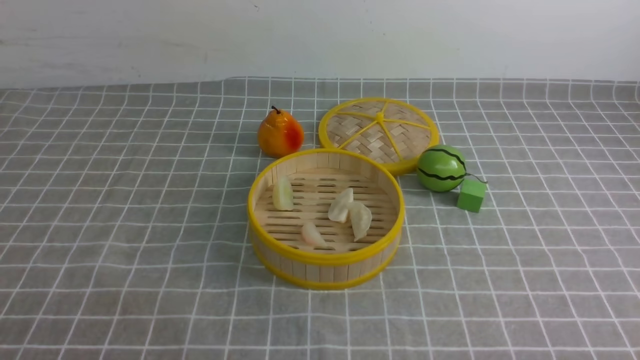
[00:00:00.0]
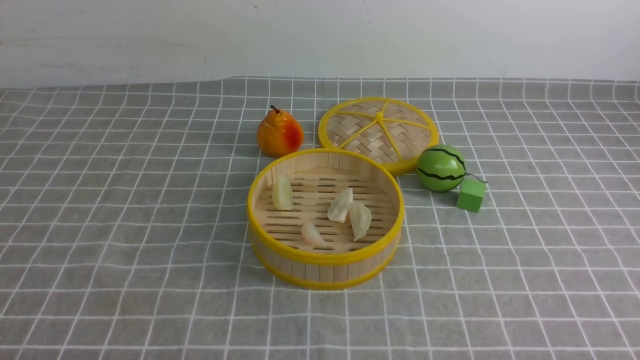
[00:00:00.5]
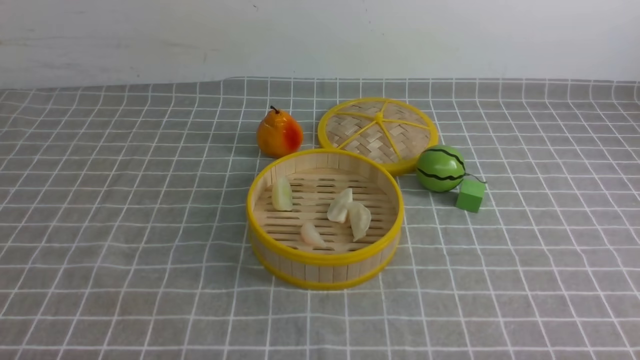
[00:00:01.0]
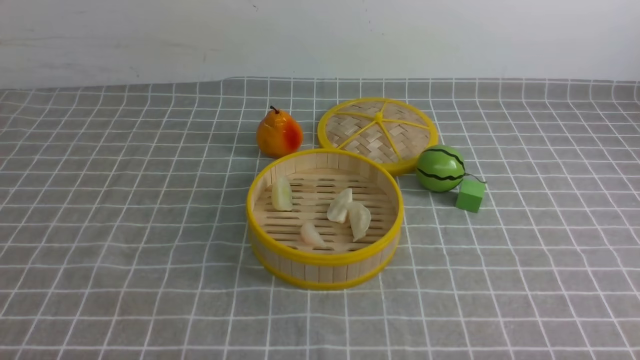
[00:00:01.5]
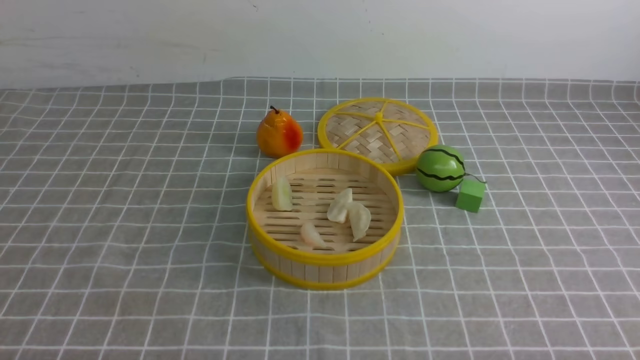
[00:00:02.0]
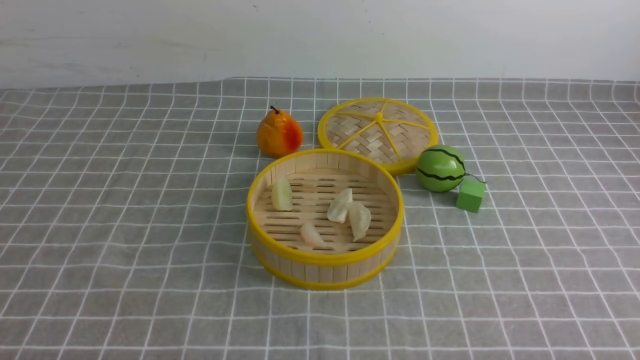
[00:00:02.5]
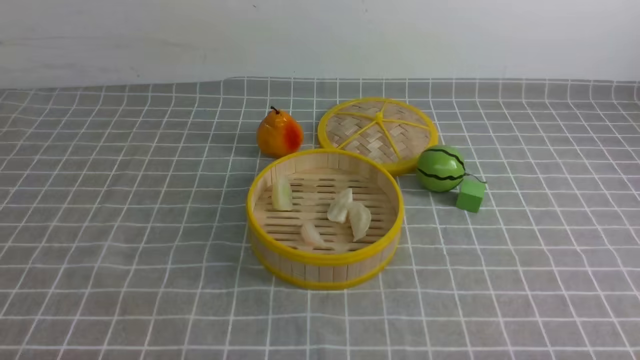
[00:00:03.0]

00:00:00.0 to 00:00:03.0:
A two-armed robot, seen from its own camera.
Task of the whole recording: put the dumplings into the steamer on the table with the grey tablecloth.
00:00:01.5 to 00:00:03.0: Neither gripper changes place.
